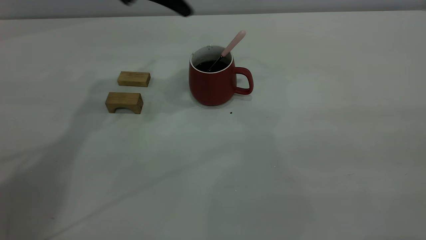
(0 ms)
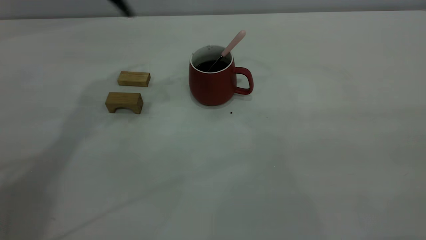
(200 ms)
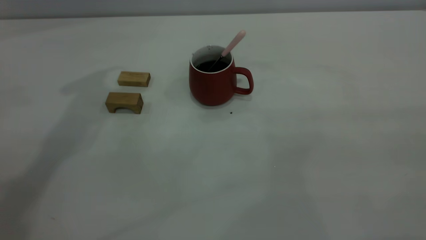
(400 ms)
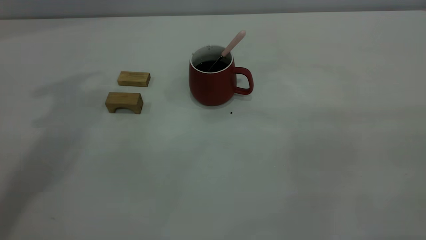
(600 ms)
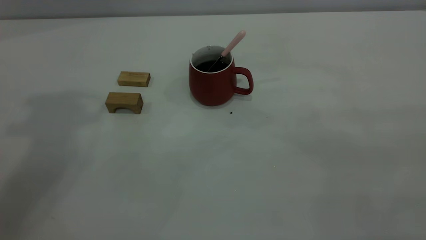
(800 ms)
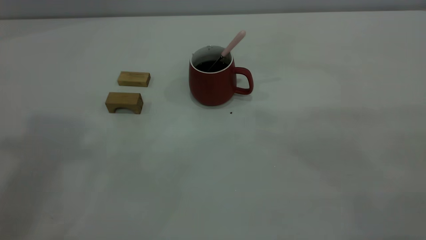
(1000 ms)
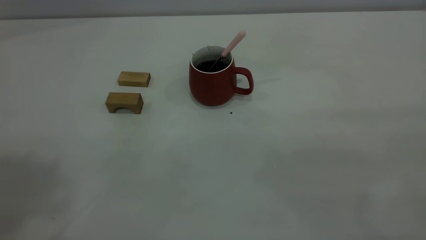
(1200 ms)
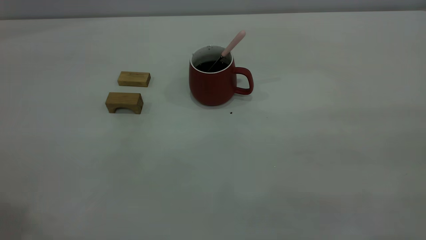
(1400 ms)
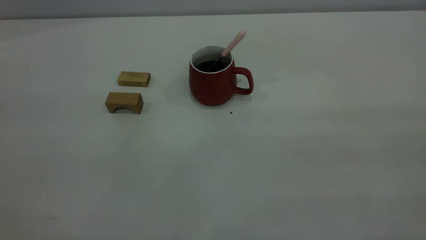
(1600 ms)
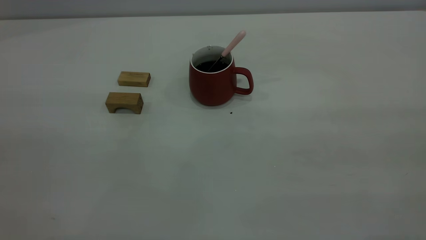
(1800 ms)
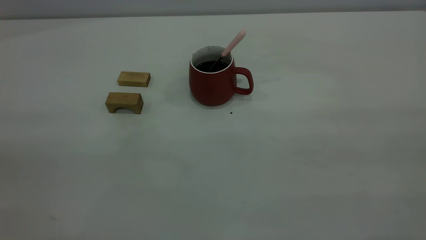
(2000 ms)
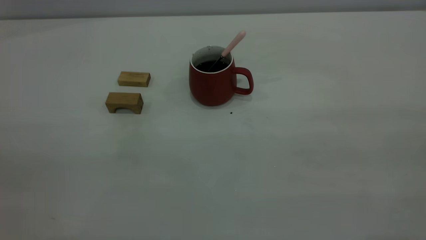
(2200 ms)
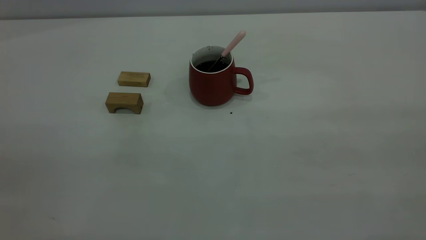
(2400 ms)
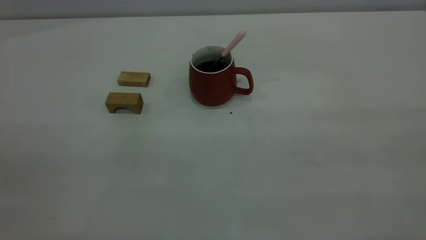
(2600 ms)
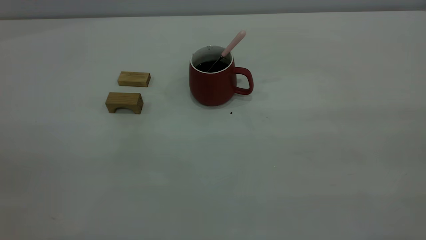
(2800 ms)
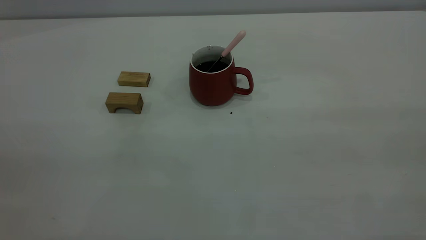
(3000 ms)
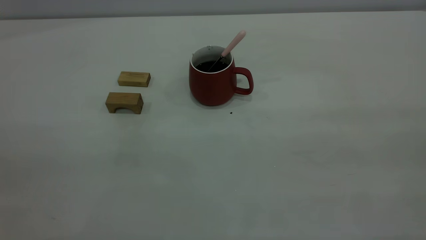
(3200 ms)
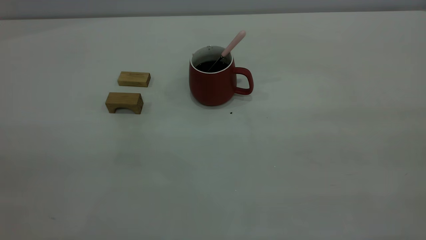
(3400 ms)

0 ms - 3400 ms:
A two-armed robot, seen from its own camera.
0 ms - 1600 ms: The left gripper travels backward, upward and to the left by approximately 40 cm.
